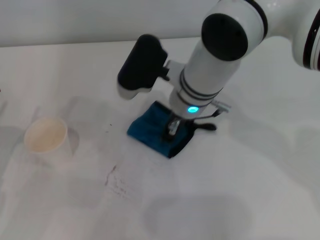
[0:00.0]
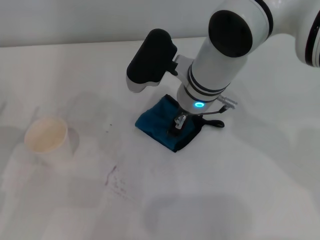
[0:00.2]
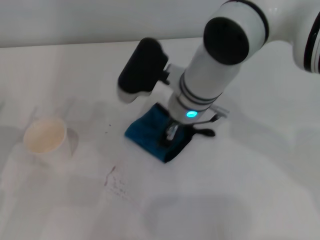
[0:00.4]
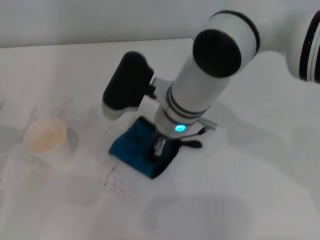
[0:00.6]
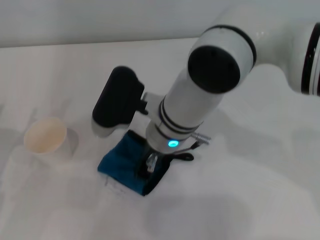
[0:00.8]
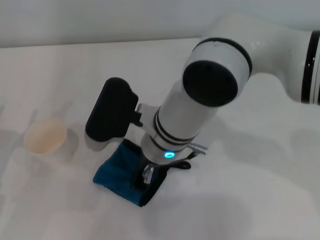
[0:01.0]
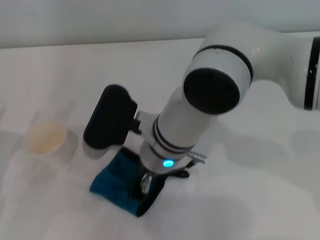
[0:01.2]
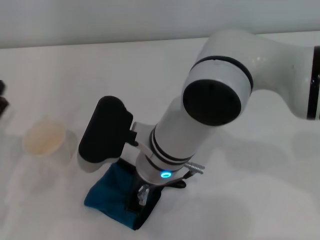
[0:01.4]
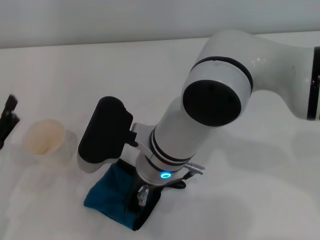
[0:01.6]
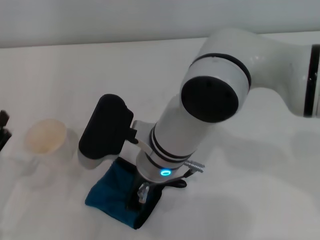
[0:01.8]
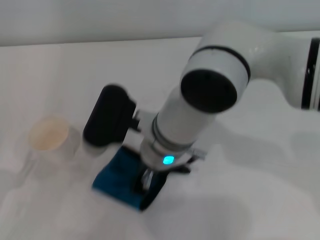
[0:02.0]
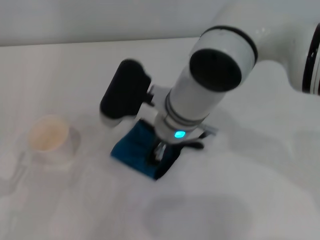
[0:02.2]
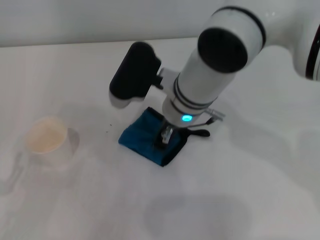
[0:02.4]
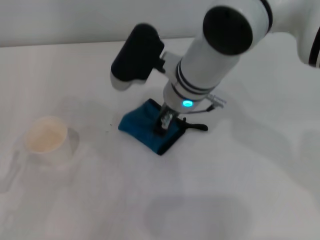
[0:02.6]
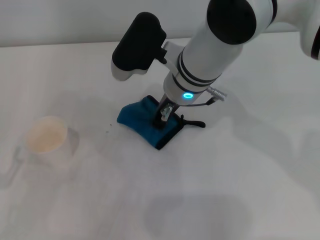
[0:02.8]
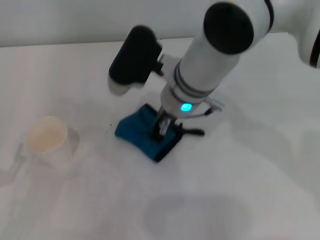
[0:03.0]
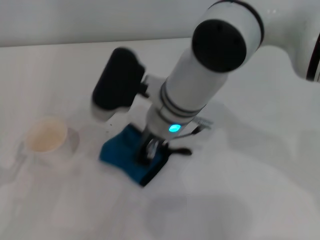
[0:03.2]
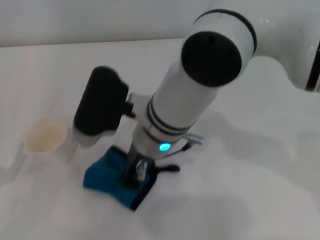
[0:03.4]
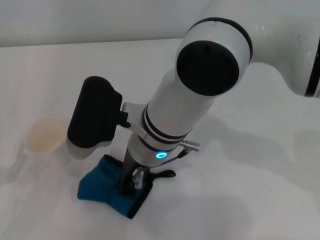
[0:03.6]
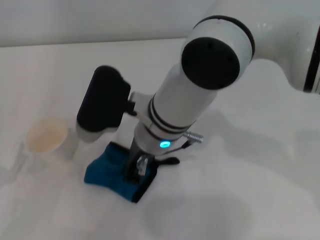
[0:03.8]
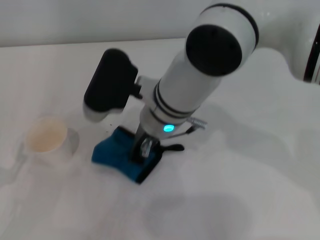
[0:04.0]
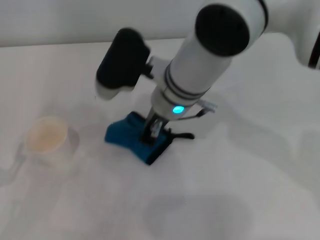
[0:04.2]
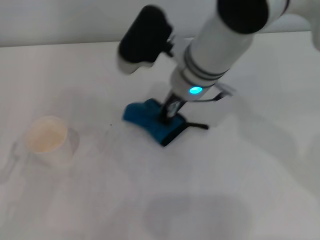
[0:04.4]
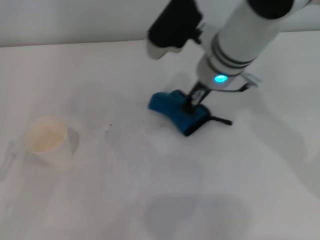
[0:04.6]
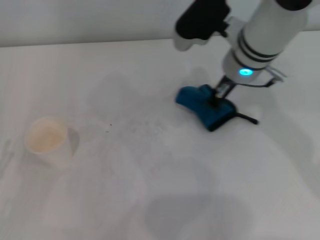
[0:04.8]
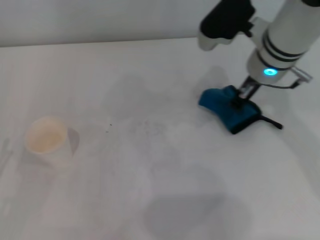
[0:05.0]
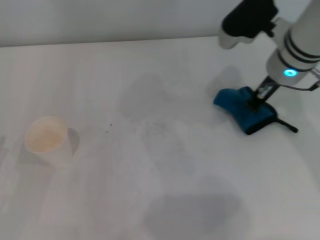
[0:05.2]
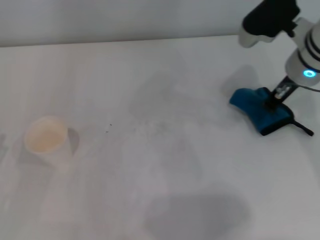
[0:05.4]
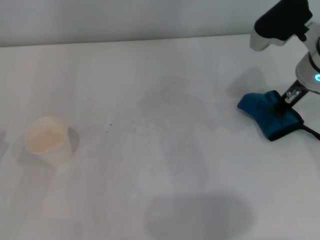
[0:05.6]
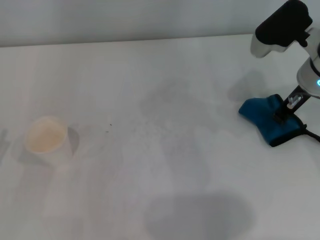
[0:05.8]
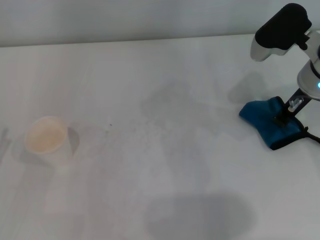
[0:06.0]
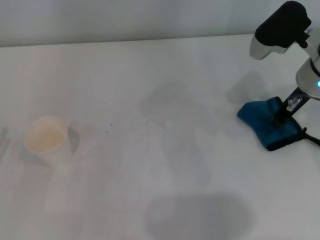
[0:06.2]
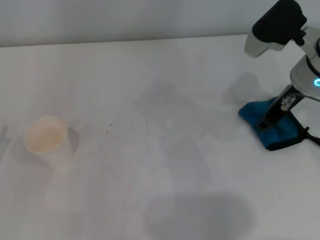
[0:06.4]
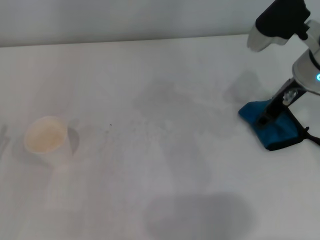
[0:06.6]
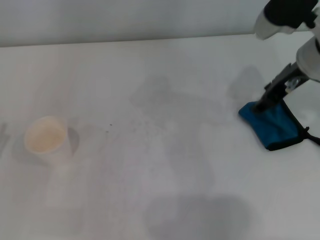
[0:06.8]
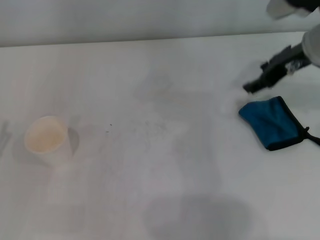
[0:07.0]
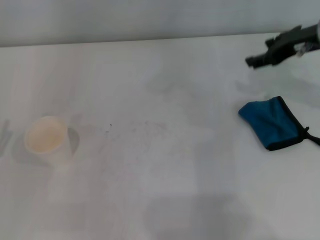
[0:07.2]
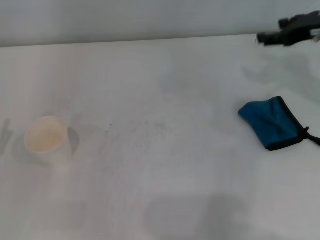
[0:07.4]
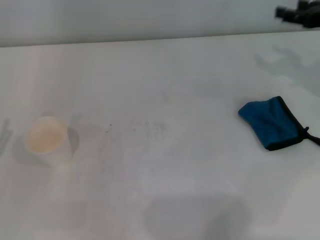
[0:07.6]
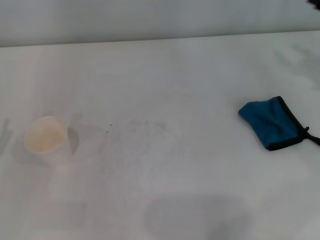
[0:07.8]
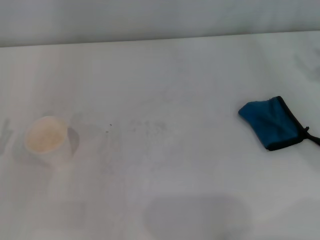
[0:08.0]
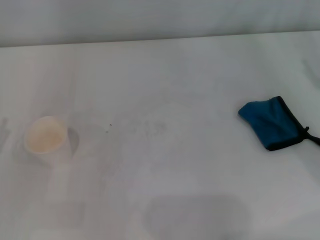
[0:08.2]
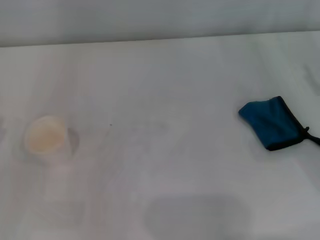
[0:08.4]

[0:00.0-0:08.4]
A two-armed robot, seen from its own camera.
Step, 0.0 to 5.4 s: Wipe the stains off the table with the right gripper.
Step, 5.6 to 6.2 s: Place the rag on the table with the right gripper.
0.0 to 1.4 s: The right gripper travels backward and to the left by approximately 10 cm.
1.4 to 2.8 s: The left gripper moves backward, some 5 cm. The right gripper moves forward, roughly 10 cm.
2.8 to 4.2 s: The right gripper reaches about 10 cm backward, then returns.
4.2 to 5.6 s: The right gripper shifts some 20 cm to the right.
5.6 to 7.0 s: The right gripper opens.
7.0 to 8.4 s: The right gripper is displaced to the right, backward and downward by roughly 20 cm.

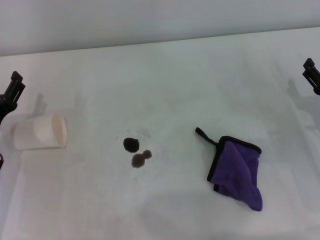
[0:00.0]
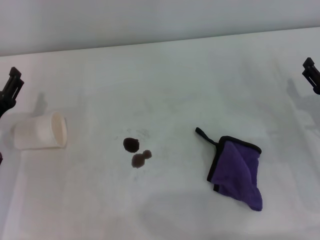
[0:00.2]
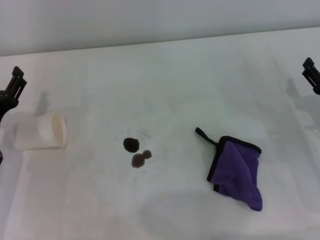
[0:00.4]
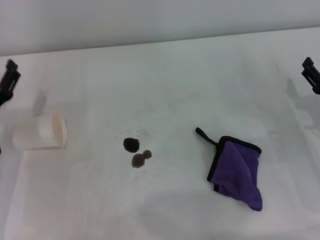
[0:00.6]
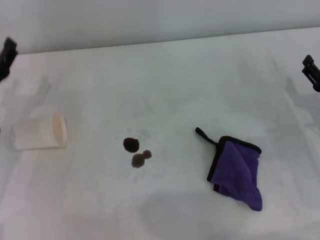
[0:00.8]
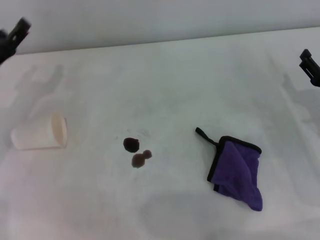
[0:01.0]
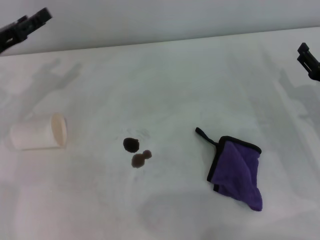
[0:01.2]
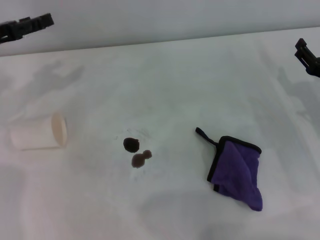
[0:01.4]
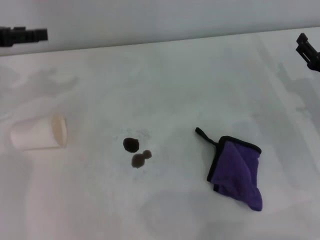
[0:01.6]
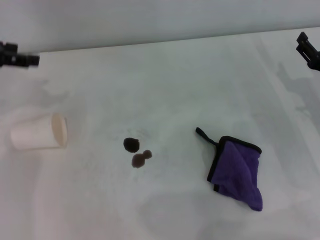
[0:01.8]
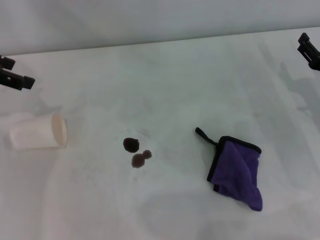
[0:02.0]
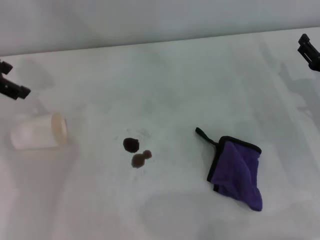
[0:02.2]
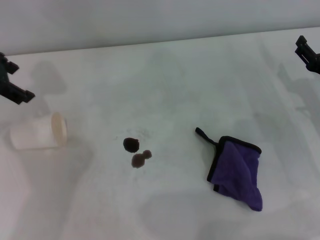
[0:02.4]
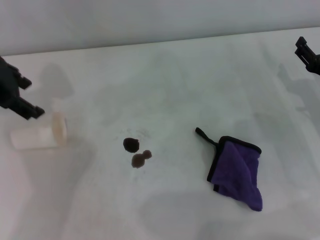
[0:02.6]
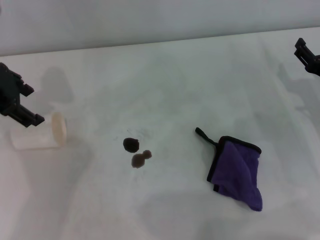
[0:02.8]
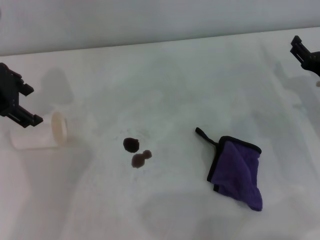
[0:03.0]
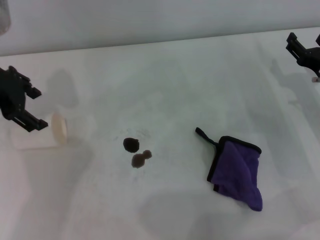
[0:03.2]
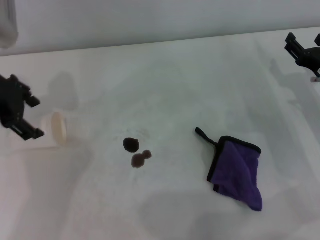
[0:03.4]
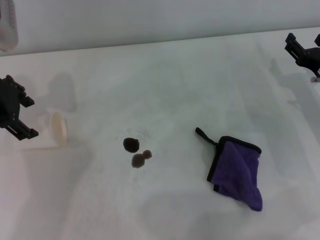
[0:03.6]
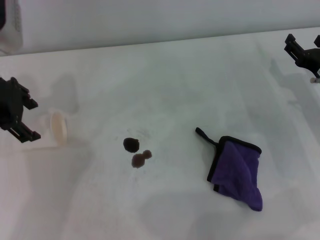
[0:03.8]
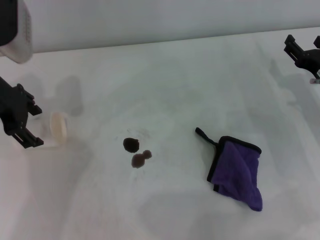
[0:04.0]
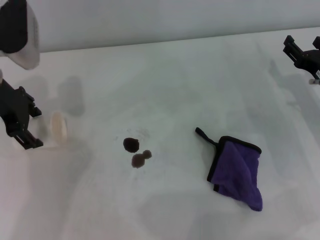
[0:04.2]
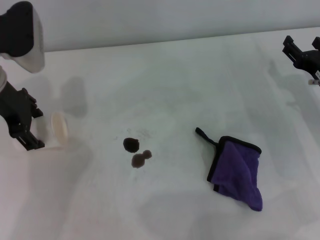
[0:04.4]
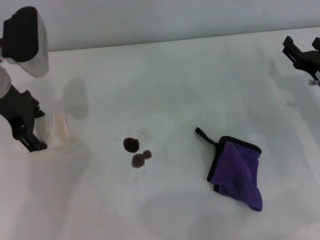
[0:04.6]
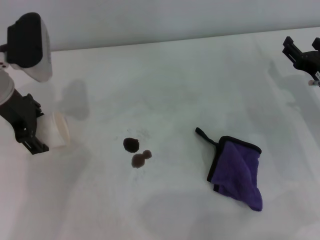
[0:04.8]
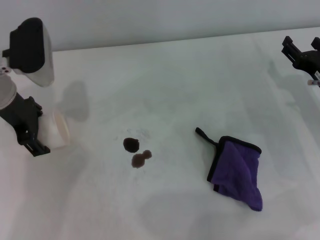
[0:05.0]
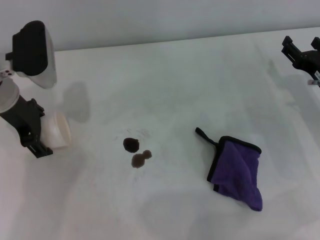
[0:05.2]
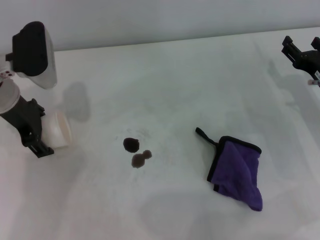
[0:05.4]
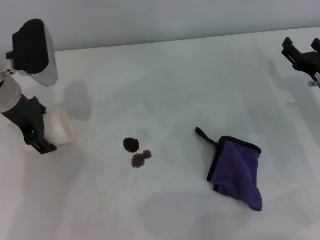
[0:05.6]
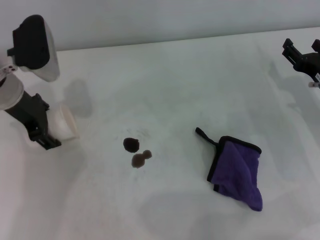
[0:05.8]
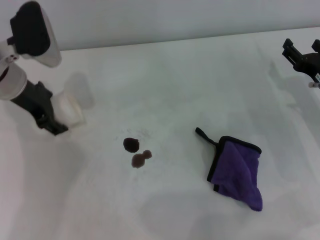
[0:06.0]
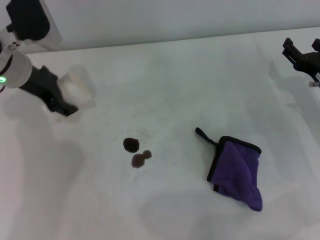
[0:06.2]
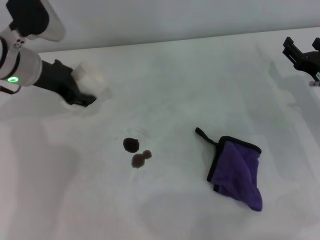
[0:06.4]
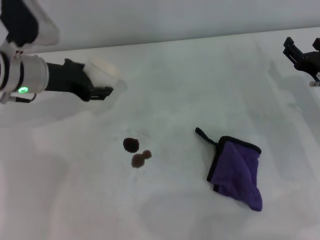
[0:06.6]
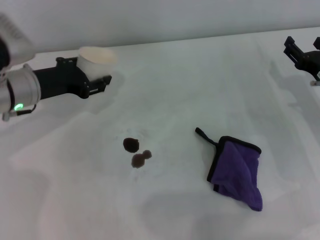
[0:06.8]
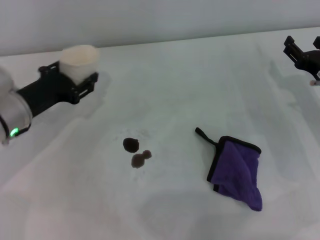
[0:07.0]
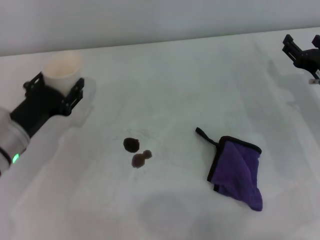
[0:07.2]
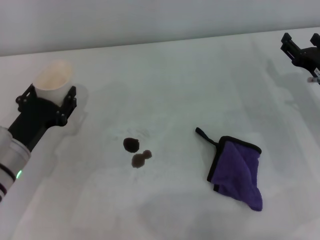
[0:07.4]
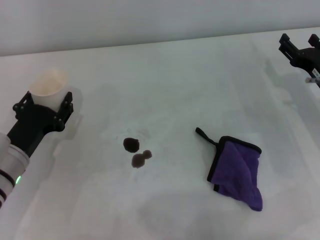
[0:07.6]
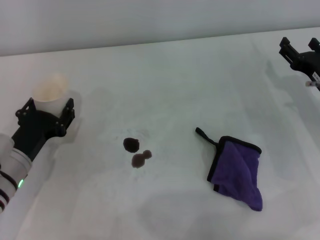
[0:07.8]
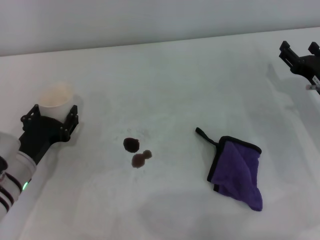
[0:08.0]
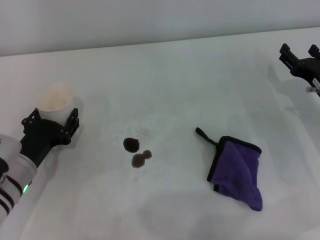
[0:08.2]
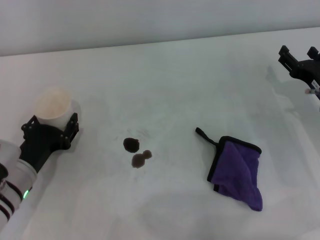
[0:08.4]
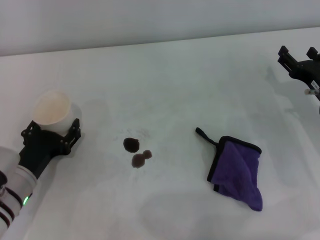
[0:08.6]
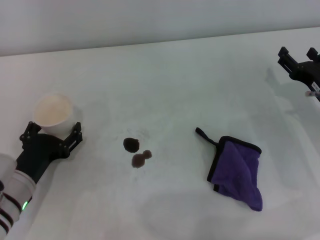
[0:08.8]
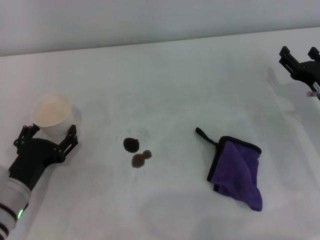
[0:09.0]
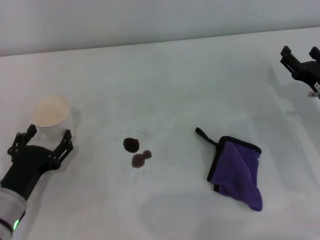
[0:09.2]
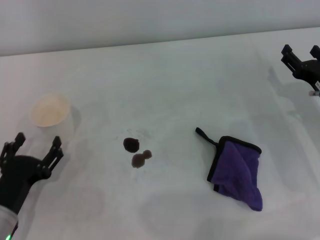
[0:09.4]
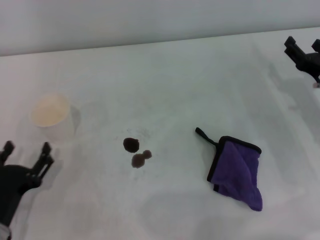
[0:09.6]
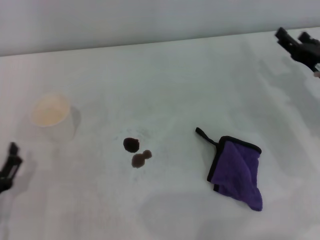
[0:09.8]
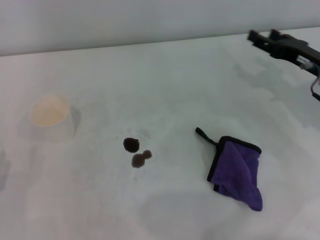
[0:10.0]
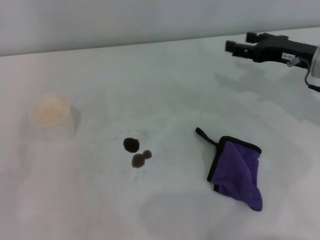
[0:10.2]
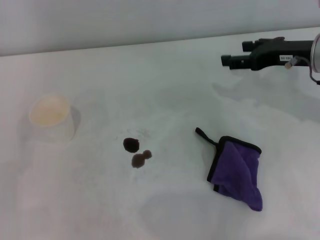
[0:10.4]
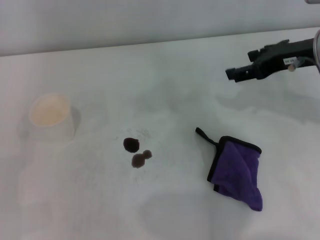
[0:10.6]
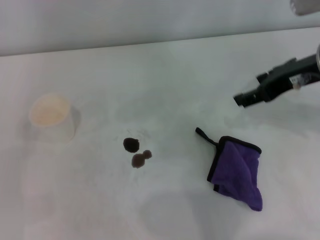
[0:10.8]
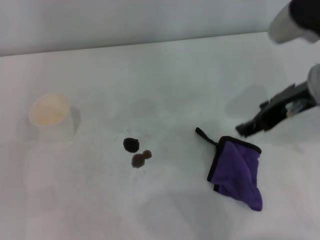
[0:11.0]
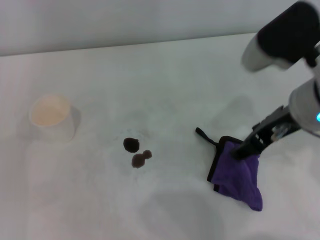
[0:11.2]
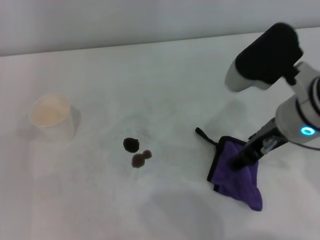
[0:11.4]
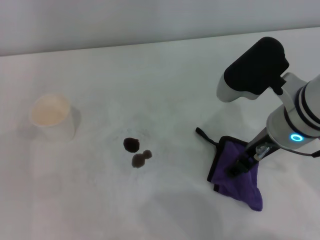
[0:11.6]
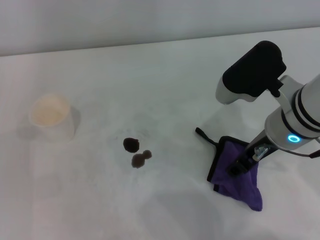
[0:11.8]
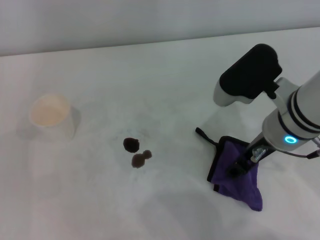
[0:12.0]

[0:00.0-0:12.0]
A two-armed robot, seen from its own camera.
Step, 0.0 to 5.4 s: Grasp the paper cup with the left gripper.
Step, 5.6 to 8.6 s: Stand the paper cup upright with the left gripper.
0.0 to 1.6 s: The left gripper heads upward and forward, covering roughly 20 cm.
1.6 to 3.0 s: The left gripper moves to the right, roughly 5 cm.
3.0 to 4.4 s: The left gripper ends up roughly 5 cm from where it was.
4.4 to 6.0 s: The left gripper closes.
6.0 to 7.6 s: The left gripper moves backward and downward, about 20 cm, and closes.
7.6 to 9.0 s: The left gripper shifts by roughly 5 cm, and opens.
9.0 to 10.4 s: The left gripper moves to the left and backward, some 10 cm. The right gripper shifts roughly 15 cm upward and forward.
10.4 to 12.0 s: The right gripper heads to the left and backward, covering approximately 15 cm.

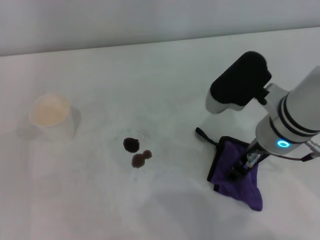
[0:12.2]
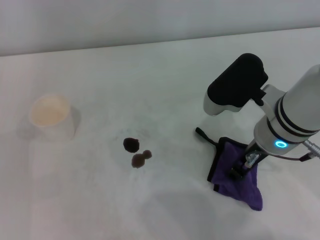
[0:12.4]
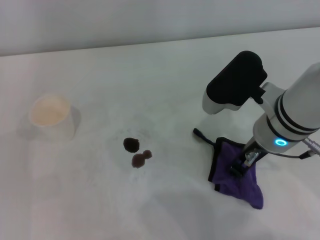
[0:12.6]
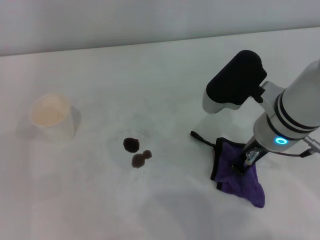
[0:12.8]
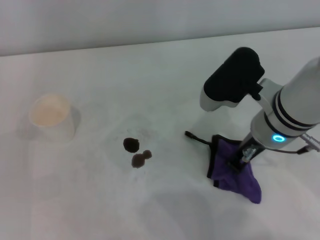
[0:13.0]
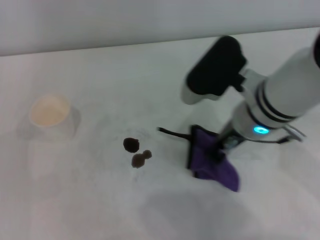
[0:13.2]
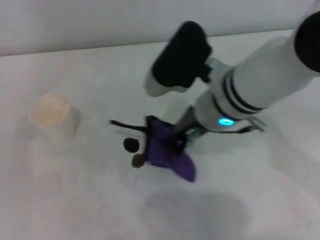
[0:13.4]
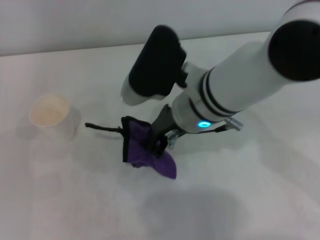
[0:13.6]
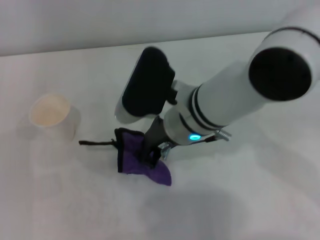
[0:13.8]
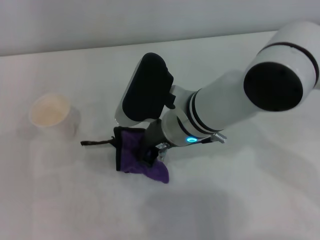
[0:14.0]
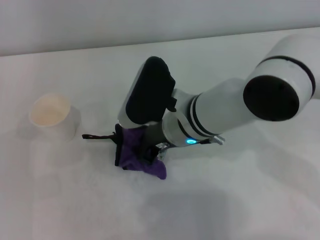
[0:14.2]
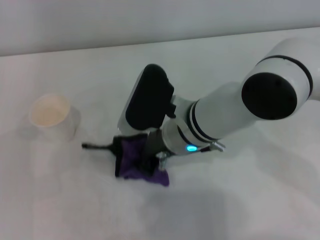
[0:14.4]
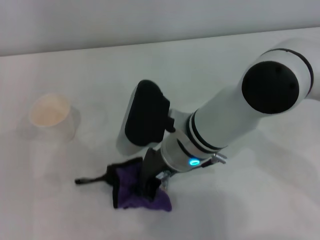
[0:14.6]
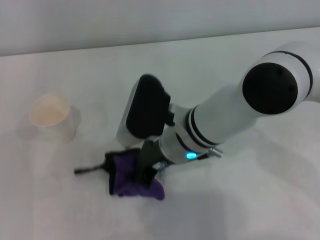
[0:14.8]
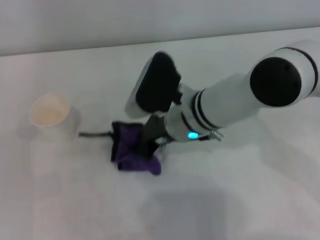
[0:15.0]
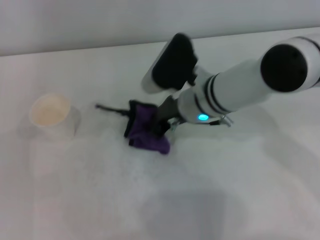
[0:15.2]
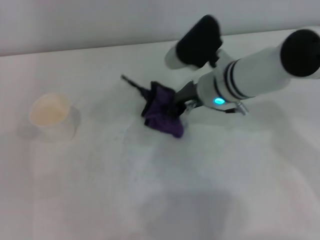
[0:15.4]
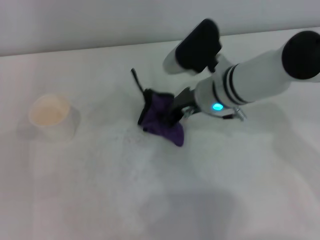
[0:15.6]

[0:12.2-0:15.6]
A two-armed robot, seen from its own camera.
12.2 to 13.8 s: The right gripper travels to the left by some 10 cm, and closes.
13.8 to 15.6 s: The right gripper heads to the right and forward, covering approximately 10 cm.
